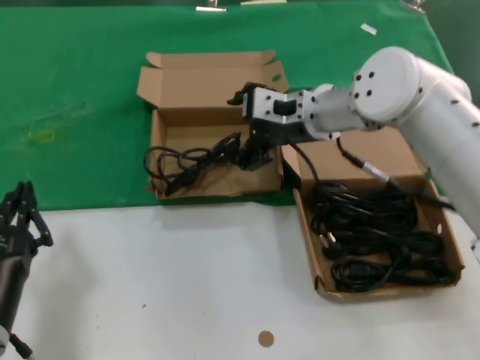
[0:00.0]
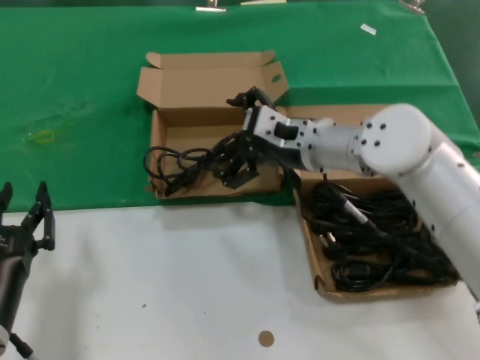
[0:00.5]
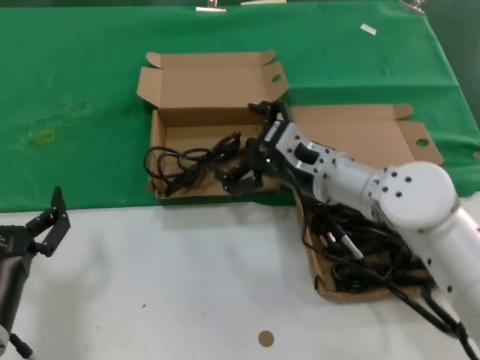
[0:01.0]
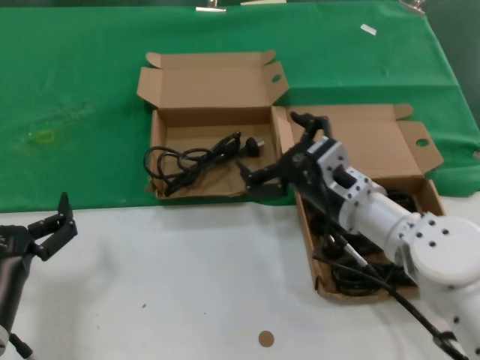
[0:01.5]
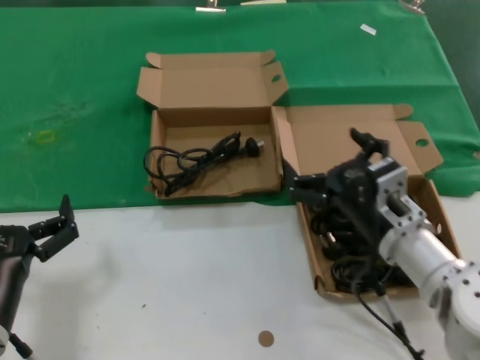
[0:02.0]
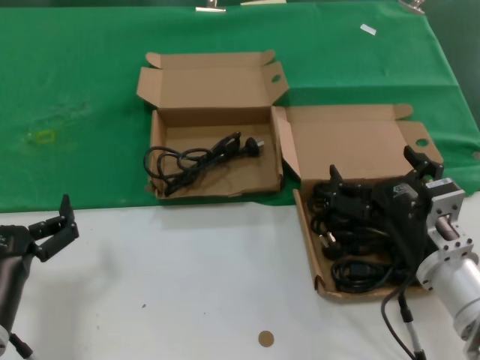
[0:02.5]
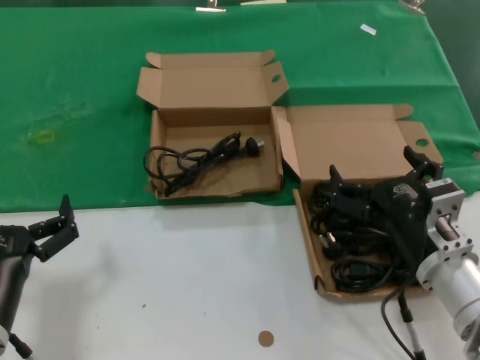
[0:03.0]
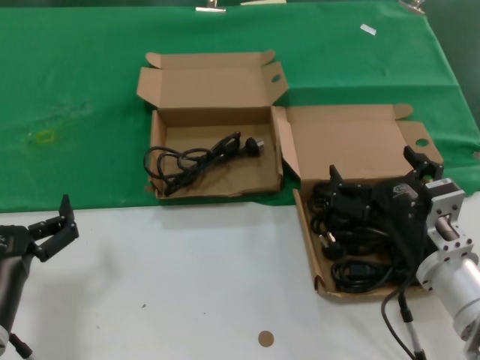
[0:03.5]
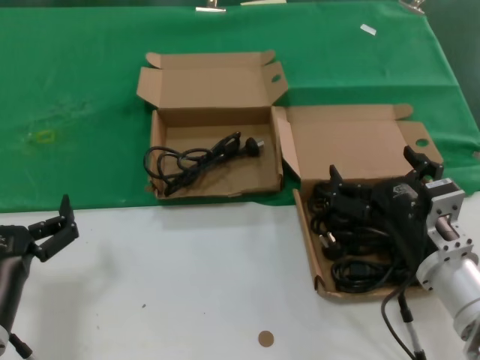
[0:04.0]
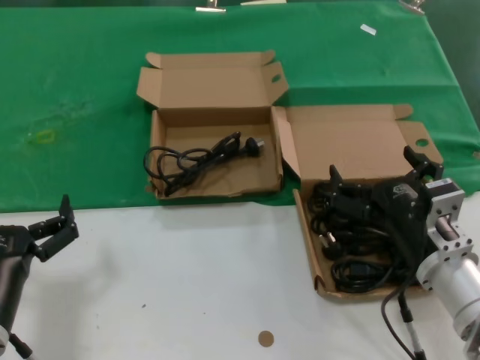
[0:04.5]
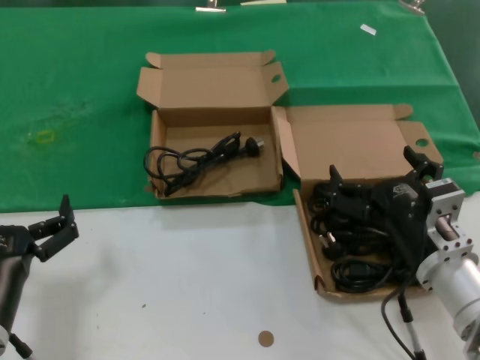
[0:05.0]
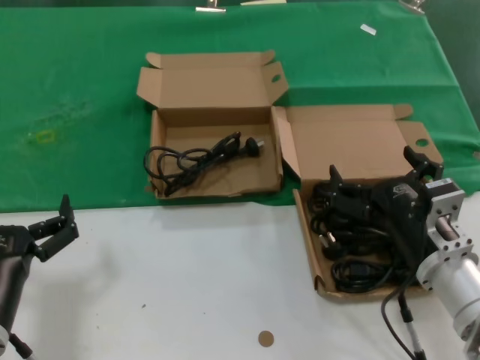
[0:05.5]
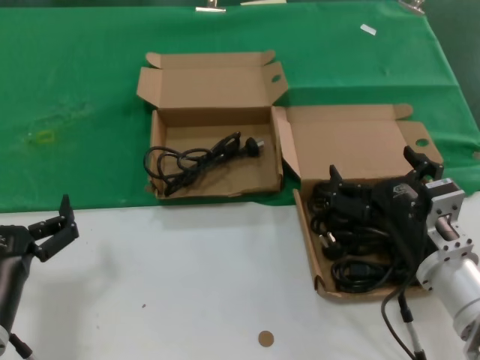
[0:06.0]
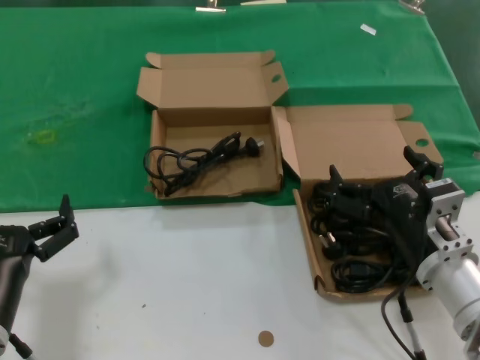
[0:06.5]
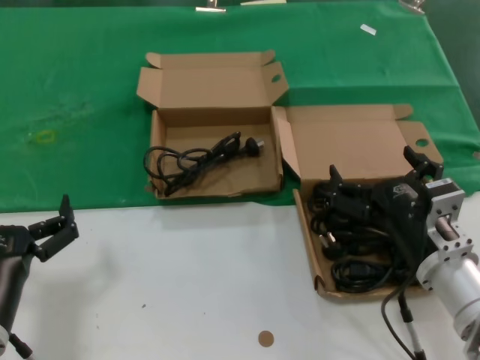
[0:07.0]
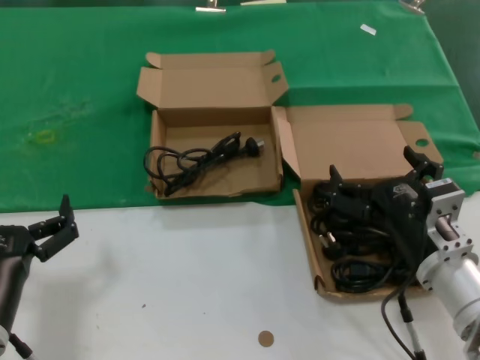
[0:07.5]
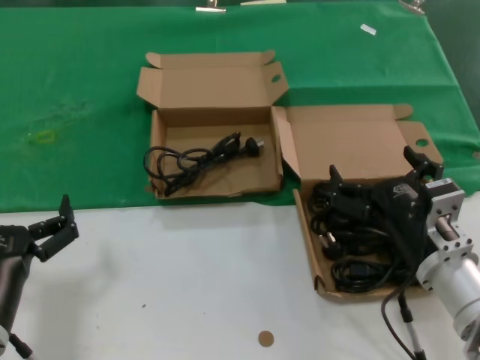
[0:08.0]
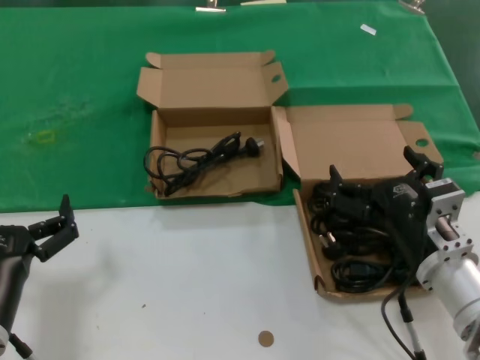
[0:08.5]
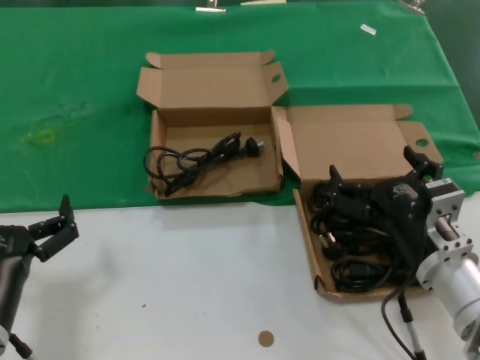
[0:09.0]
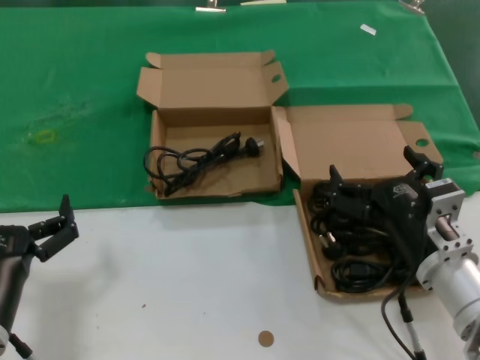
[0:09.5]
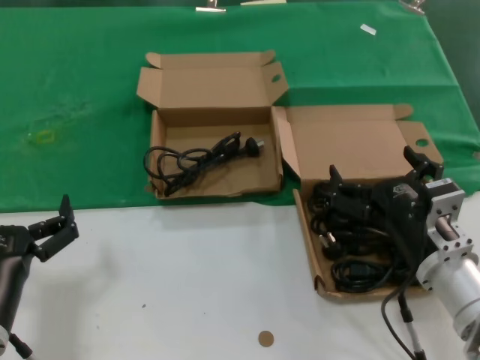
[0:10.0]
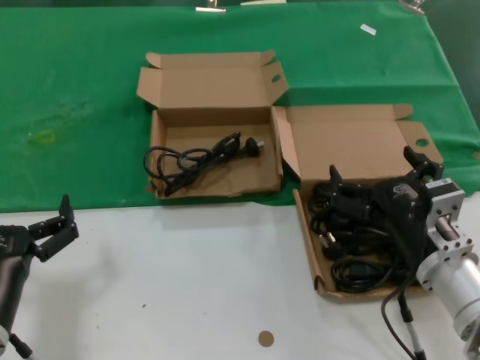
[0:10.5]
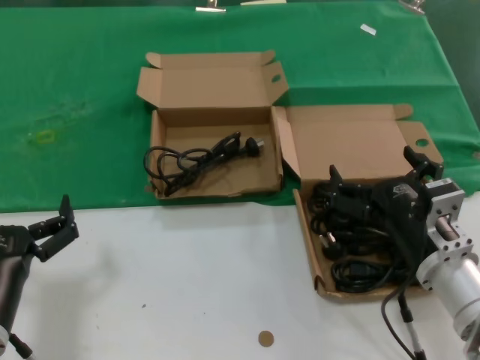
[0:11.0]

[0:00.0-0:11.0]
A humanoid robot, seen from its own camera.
Task of the whole recording: take the parts from the box containing them and put them into an empty box.
0:00.0 to 0:02.0: The right hand moves backward and downward, approximately 25 cm.
0:02.0 to 0:03.5: The right hand shifts by some 5 cm.
0:03.5 to 0:11.0: The two hands keep their place.
